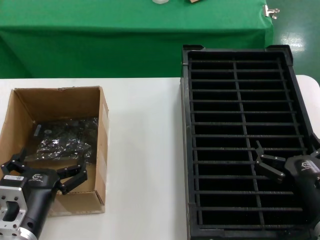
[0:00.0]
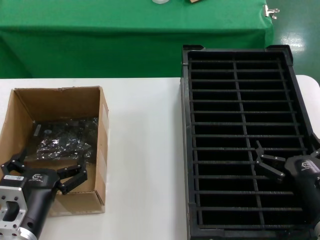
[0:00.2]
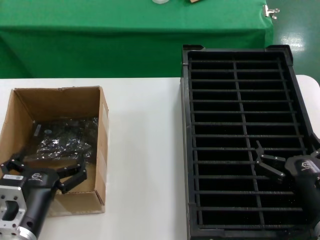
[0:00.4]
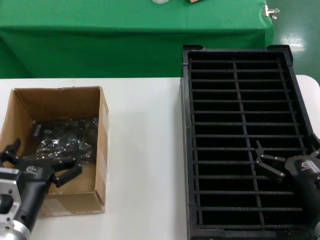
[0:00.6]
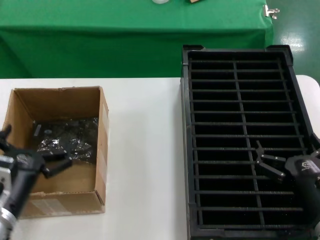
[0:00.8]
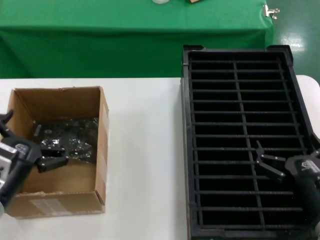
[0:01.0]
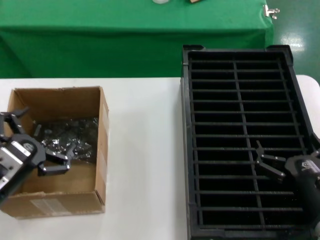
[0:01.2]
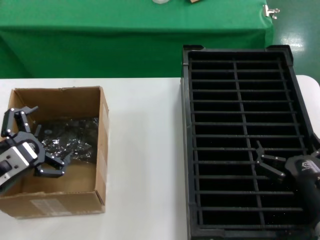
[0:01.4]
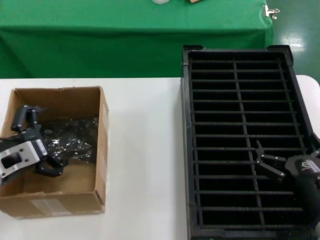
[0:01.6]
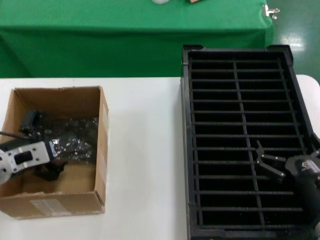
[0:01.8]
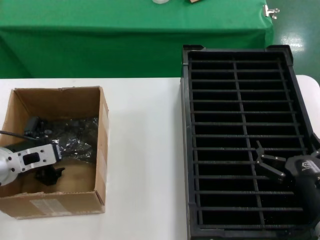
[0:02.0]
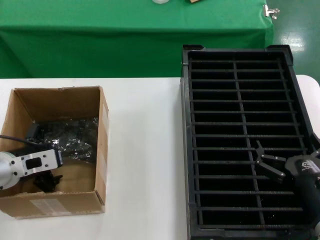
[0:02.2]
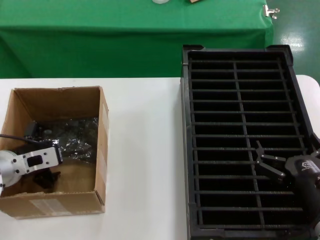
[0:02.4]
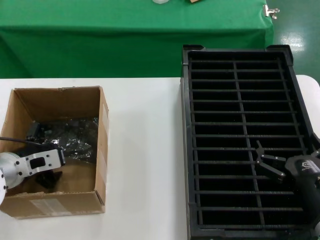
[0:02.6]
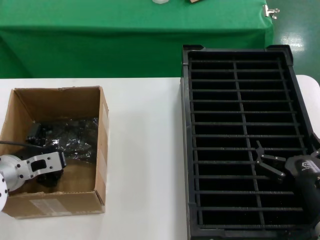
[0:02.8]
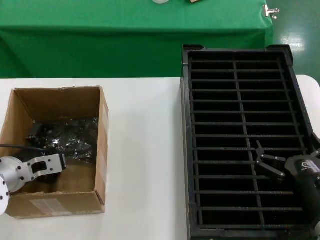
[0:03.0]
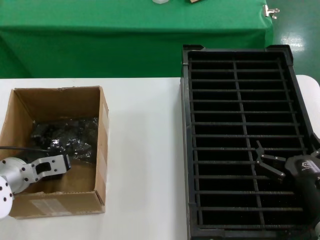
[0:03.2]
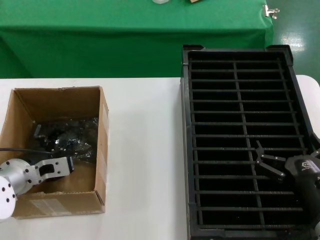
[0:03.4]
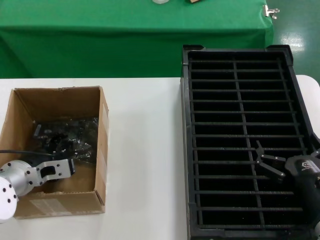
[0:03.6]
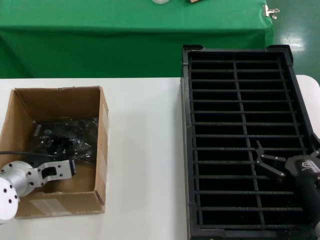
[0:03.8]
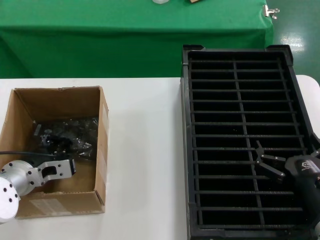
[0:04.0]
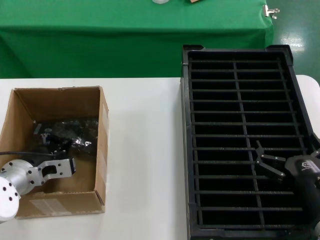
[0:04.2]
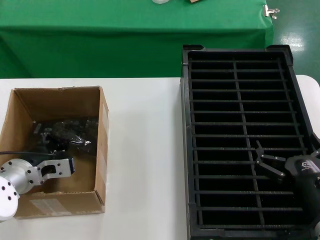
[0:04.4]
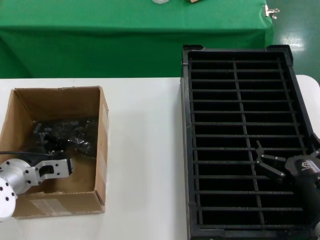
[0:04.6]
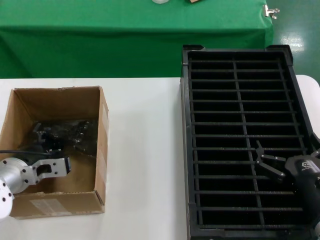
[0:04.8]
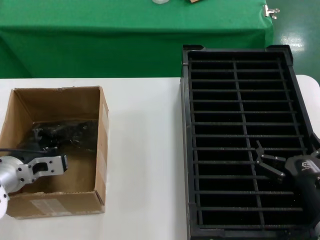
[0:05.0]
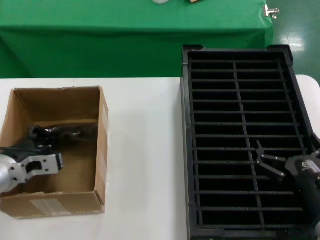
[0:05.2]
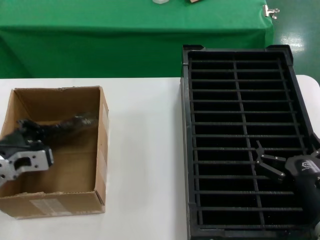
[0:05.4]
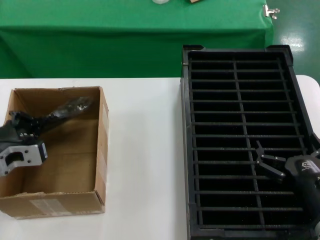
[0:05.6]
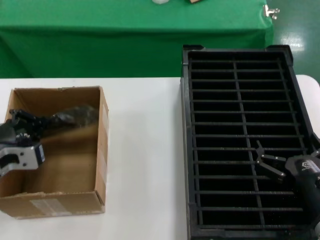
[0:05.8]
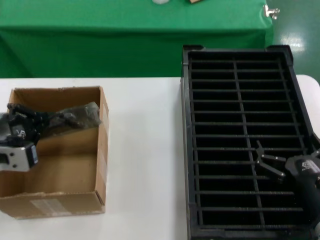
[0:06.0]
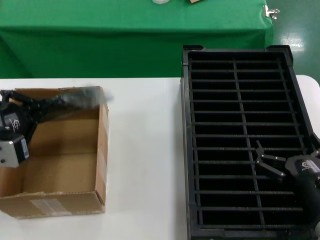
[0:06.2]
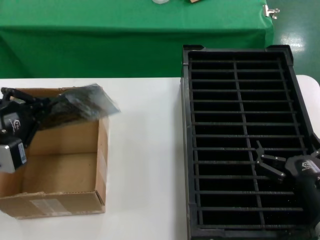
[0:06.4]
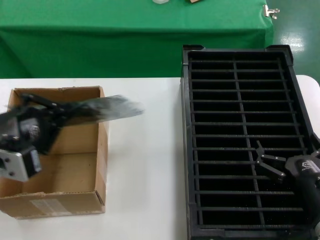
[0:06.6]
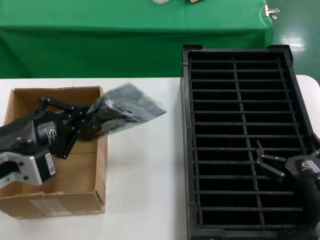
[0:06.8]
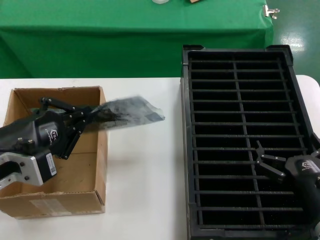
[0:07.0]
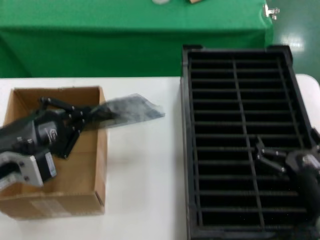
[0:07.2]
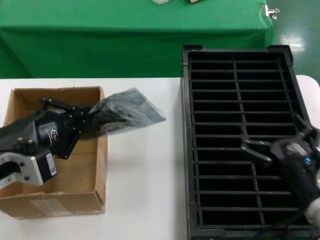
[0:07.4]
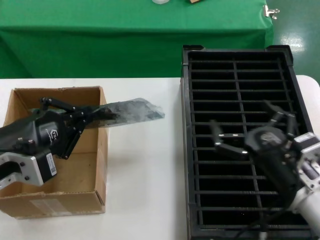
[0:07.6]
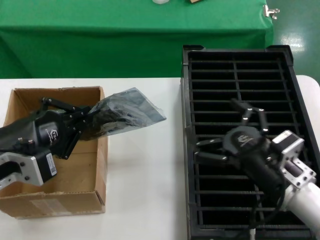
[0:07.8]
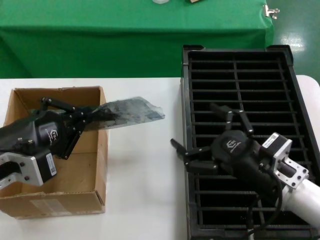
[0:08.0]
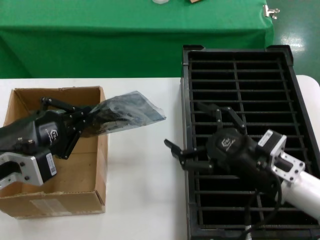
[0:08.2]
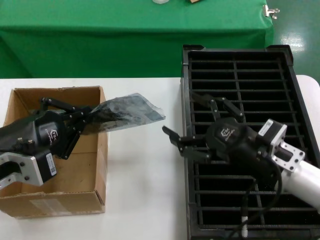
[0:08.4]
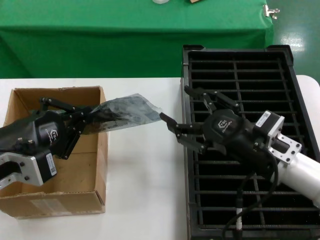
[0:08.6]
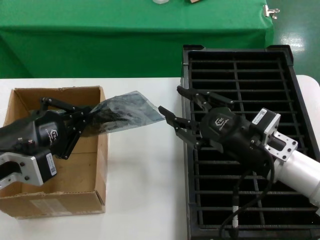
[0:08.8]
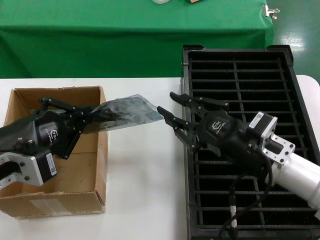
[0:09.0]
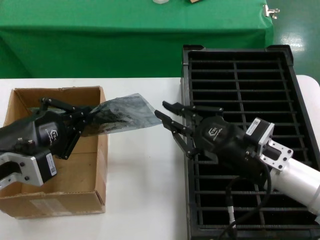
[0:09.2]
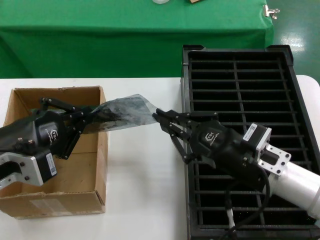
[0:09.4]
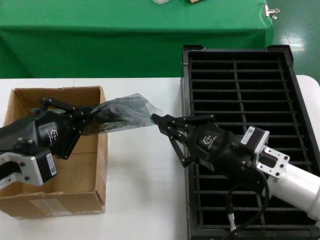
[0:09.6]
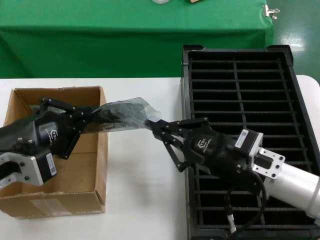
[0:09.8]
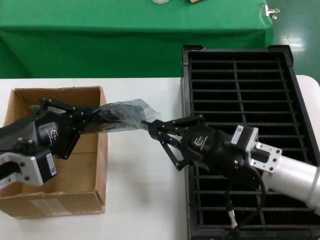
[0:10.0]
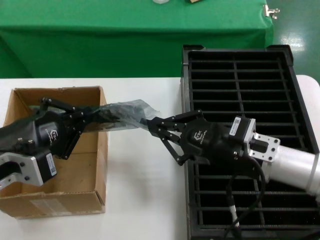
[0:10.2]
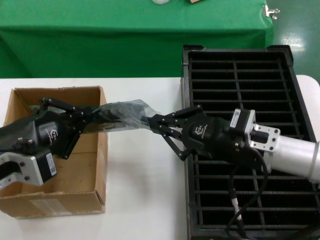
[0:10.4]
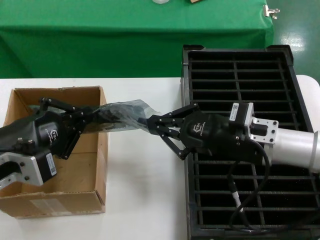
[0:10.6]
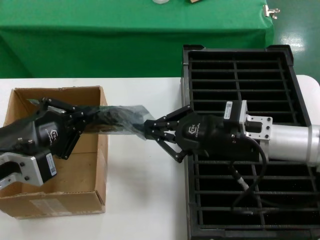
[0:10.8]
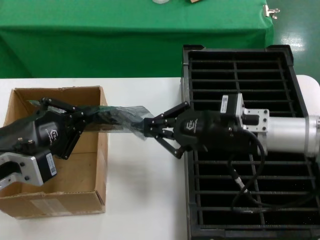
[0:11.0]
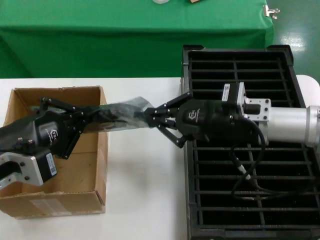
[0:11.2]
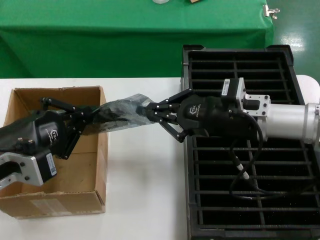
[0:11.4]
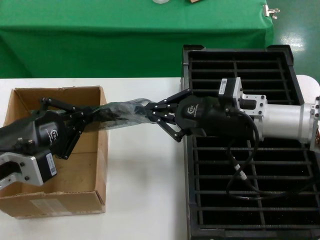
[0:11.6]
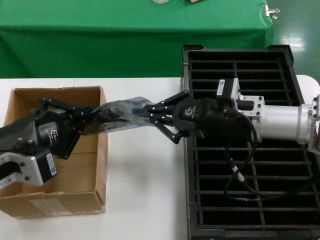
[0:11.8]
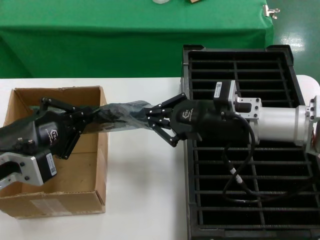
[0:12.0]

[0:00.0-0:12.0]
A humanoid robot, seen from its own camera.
Task of the whole recording: take out graphics card from box remove packaging put into black container.
Step, 0:00.0 to 0:04.8: Grasp the bag.
Step, 0:05.0 to 0:06.8: Lift the bag.
0:00.0 to 0:01.6: The left hand goes roughly 15 cm to the left, upward and forward.
0:01.6 to 0:03.0: The left hand heads forward, covering some 10 cm.
0:03.0 to 0:04.4: The hands stay close to where they were, moving slightly.
0:04.4 to 0:06.0: The left hand travels upward and backward by approximately 15 cm.
0:06.0 to 0:07.6: The left hand heads backward, covering approximately 5 cm; the right hand moves roughly 5 cm.
0:07.6 to 0:09.0: The right hand shifts about 5 cm forward.
0:09.0 to 0:10.4: The hands stay close to where they were, moving slightly.
0:10.4 to 0:12.0: The right hand shifts approximately 5 cm forward.

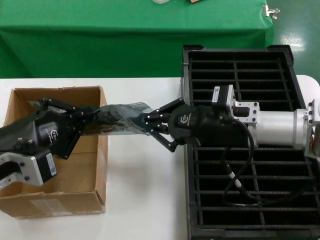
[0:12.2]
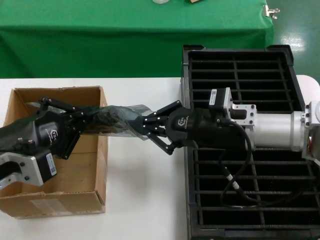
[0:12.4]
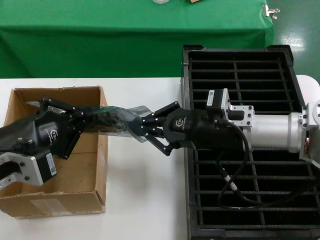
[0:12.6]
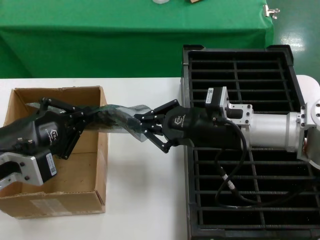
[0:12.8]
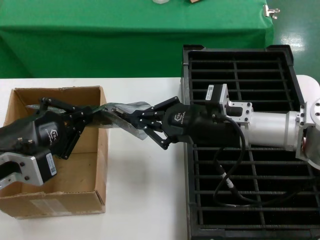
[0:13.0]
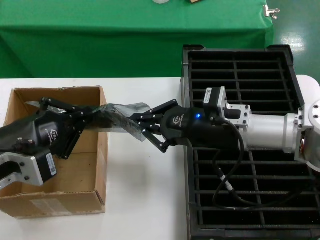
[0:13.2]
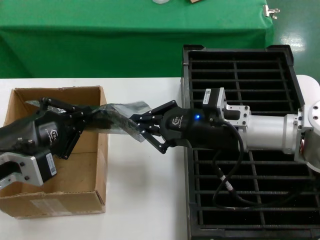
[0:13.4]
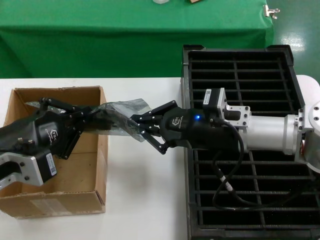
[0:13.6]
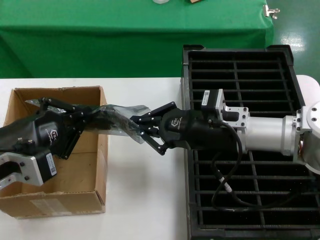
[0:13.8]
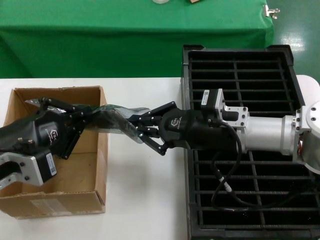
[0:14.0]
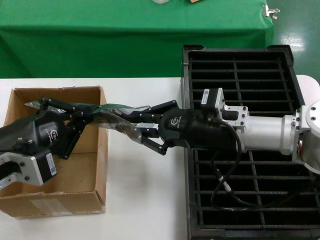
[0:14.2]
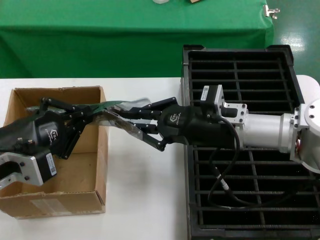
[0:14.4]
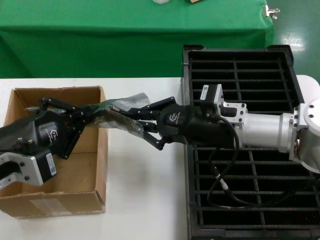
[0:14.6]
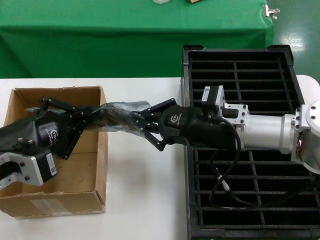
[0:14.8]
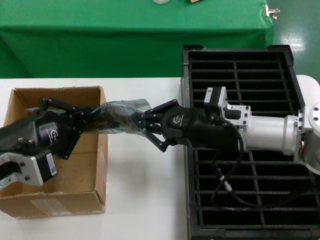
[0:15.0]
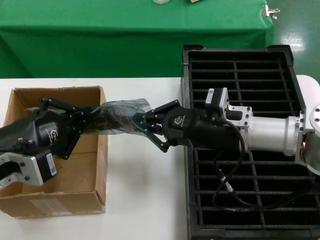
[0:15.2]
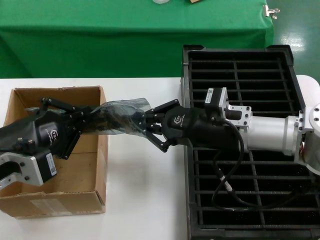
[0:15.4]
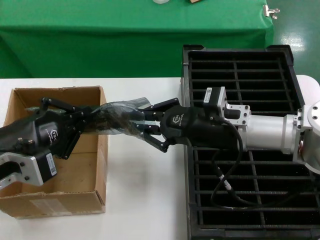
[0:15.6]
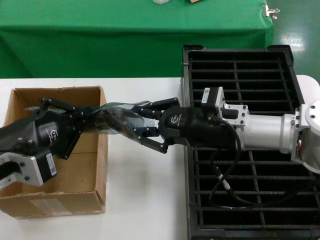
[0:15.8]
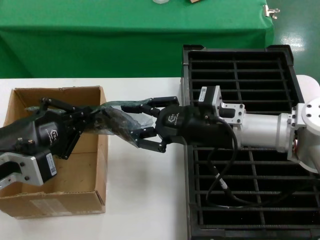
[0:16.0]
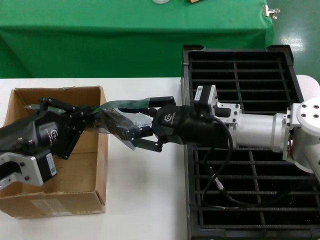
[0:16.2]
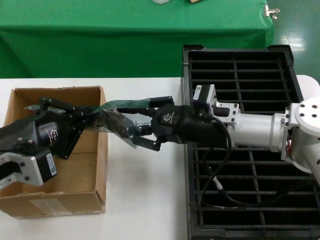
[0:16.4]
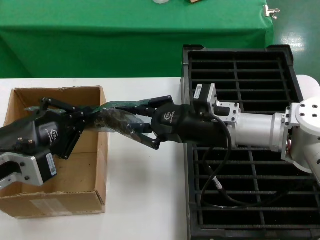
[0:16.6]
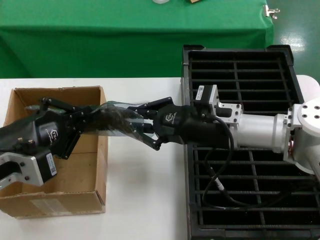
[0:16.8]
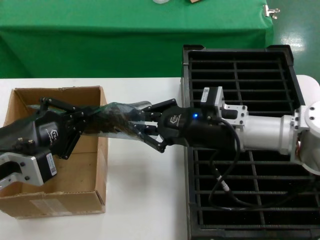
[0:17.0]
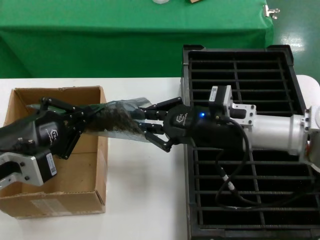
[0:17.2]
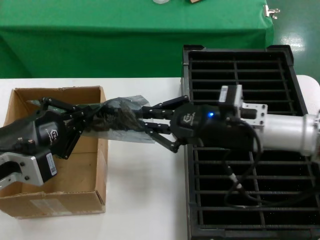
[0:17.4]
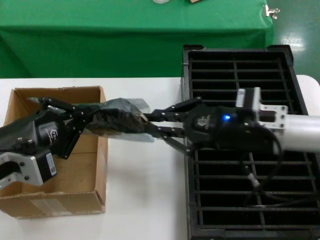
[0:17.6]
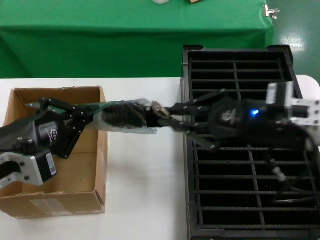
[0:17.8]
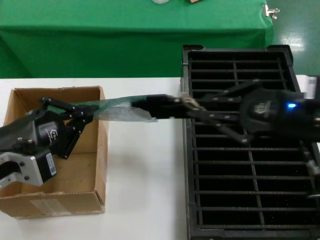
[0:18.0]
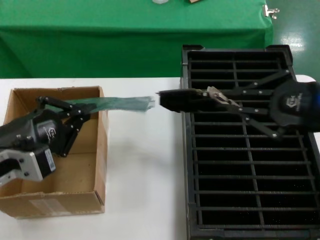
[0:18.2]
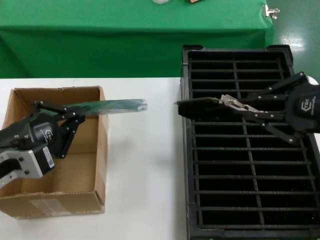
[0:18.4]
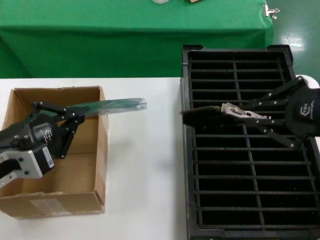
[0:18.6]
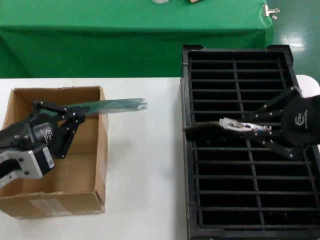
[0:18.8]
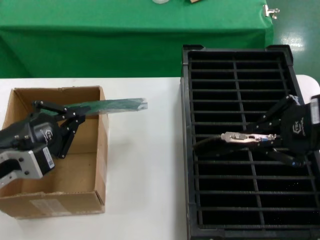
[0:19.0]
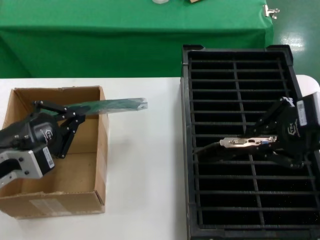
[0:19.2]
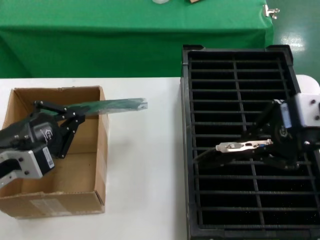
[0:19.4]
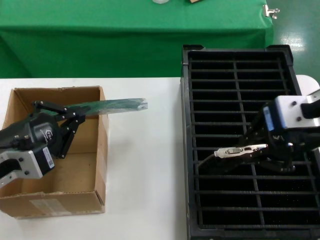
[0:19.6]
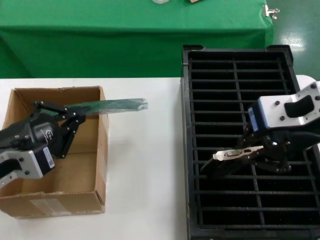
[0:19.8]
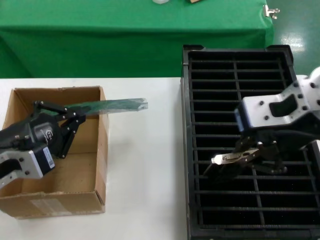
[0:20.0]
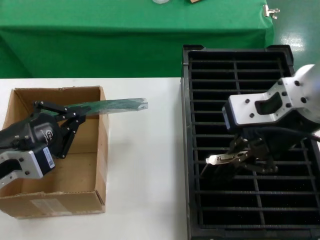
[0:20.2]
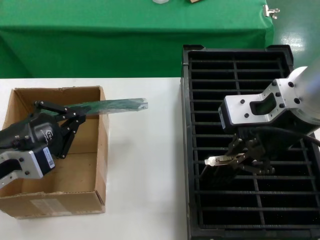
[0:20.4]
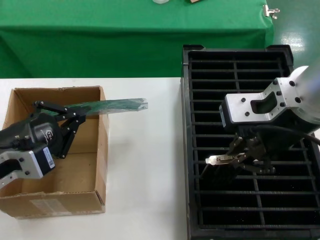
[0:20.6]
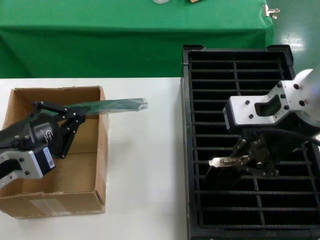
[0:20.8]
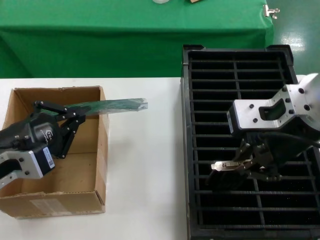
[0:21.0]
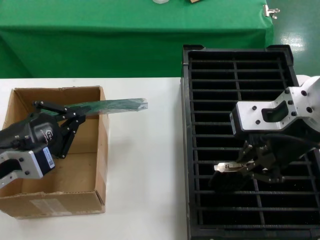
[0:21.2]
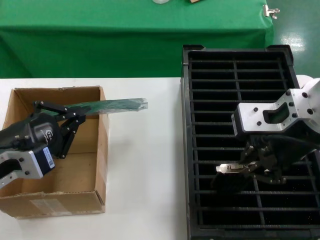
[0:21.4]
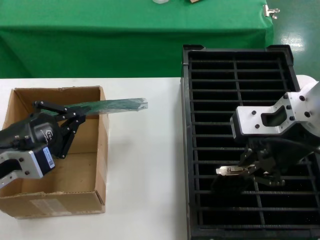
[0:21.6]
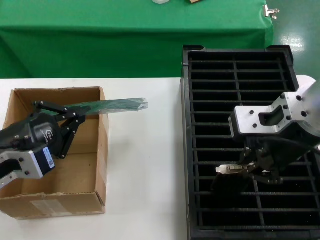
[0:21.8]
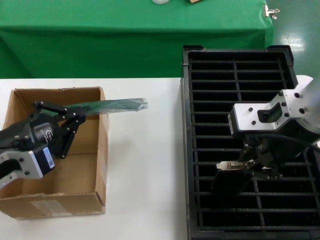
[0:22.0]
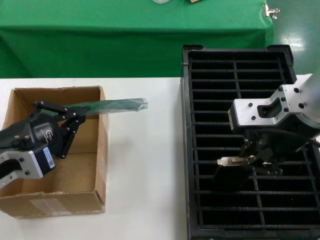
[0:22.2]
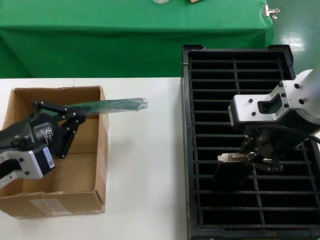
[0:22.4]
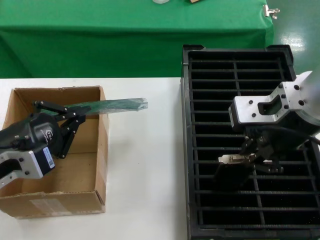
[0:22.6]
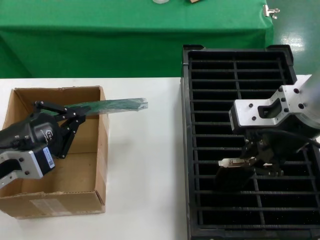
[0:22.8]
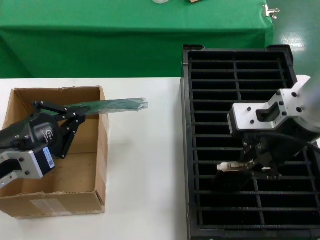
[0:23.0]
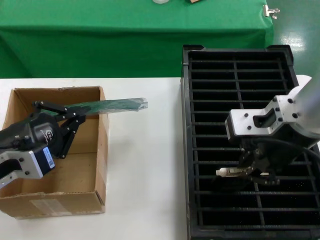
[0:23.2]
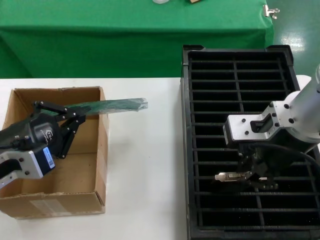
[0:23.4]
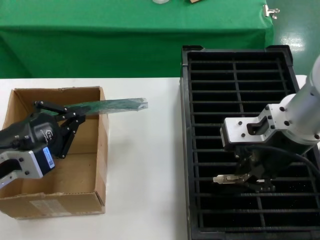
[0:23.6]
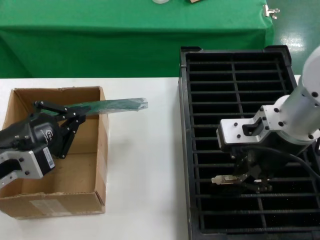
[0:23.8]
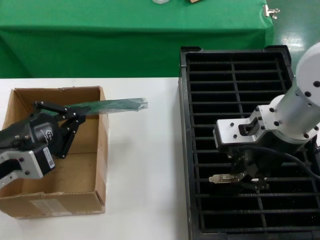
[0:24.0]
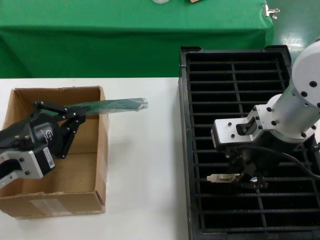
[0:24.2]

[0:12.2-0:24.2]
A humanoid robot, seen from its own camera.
Task of the whole recording: take out graphics card from box remove packaging put into black container.
Step, 0:12.2 to 0:18.2: Take out the hard disk of the bag.
0:12.2 to 0:13.8: There are only small adjustments of the hands.
0:13.8 to 0:15.2: Both hands stay put.
0:15.2 to 0:16.6: The hands stay close to where they were, moving slightly.
0:16.6 to 0:18.2: The right hand is displaced to the right, backward and upward by approximately 25 cm.
0:18.2 to 0:19.8: The right hand is displaced to the left and upward by roughly 15 cm.
0:19.8 to 0:22.6: The hands stay close to where they were, moving slightly.
0:22.6 to 0:24.2: The right hand shifts by some 5 cm.
